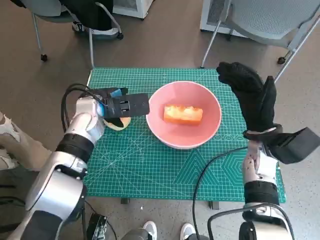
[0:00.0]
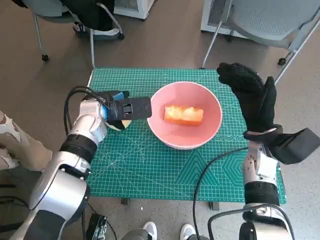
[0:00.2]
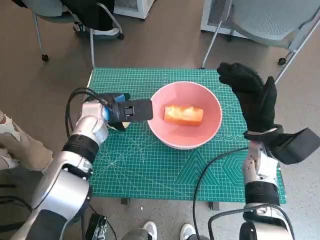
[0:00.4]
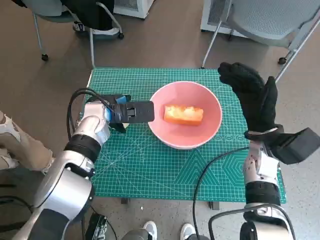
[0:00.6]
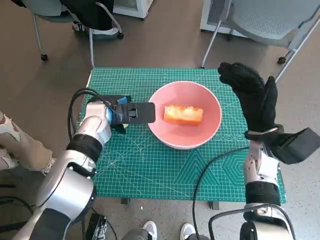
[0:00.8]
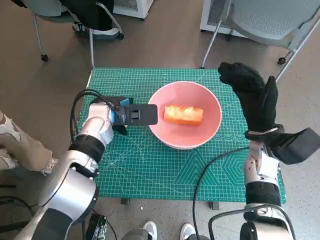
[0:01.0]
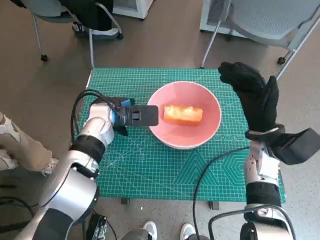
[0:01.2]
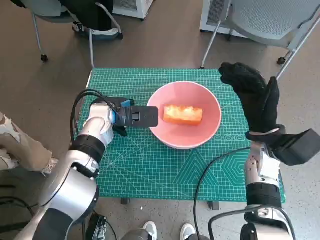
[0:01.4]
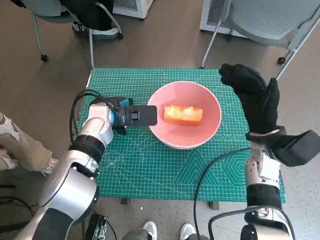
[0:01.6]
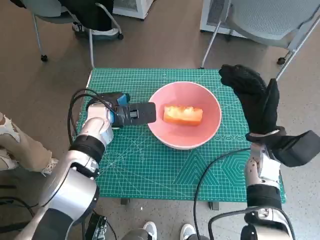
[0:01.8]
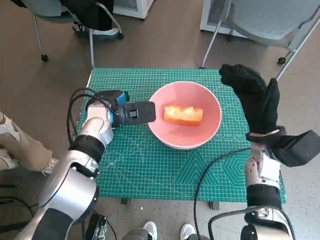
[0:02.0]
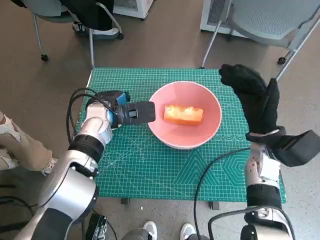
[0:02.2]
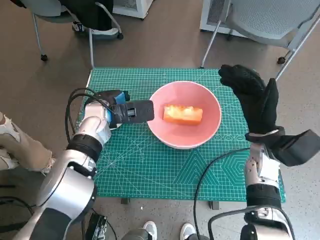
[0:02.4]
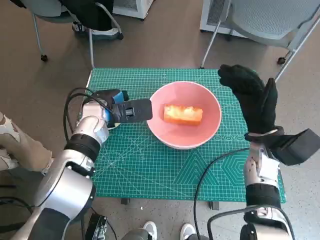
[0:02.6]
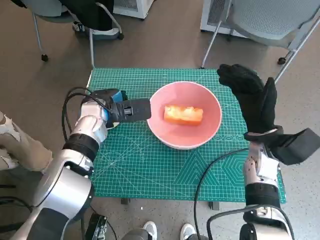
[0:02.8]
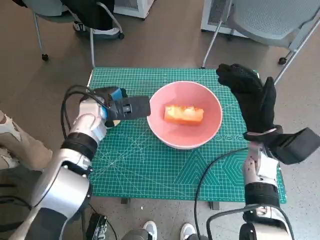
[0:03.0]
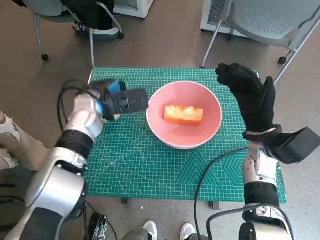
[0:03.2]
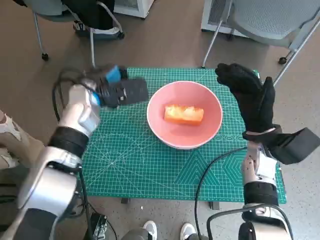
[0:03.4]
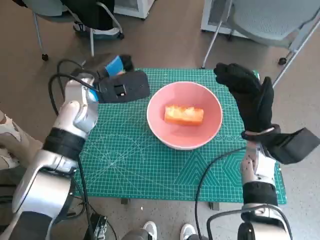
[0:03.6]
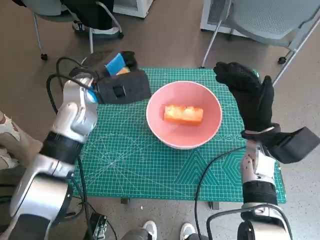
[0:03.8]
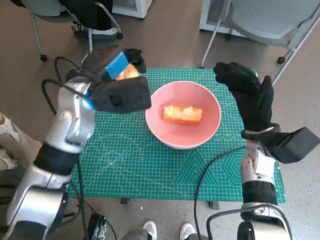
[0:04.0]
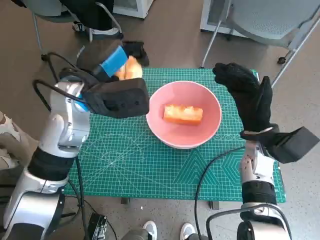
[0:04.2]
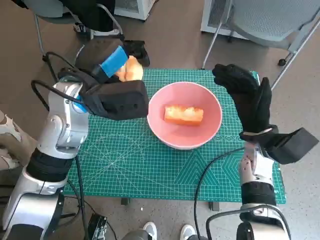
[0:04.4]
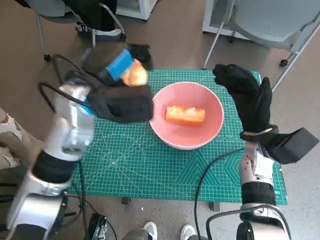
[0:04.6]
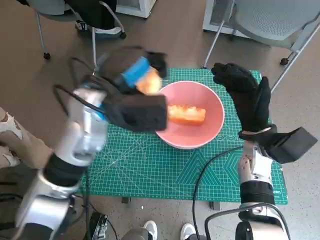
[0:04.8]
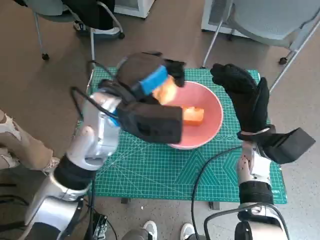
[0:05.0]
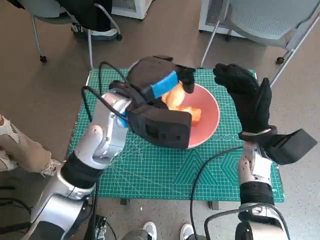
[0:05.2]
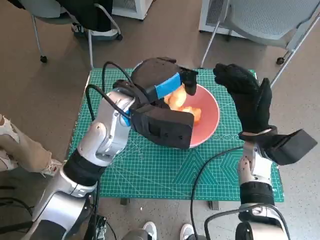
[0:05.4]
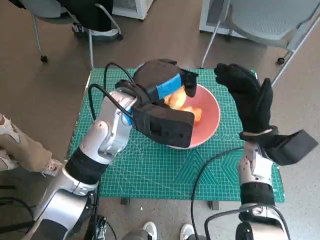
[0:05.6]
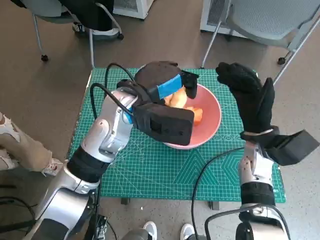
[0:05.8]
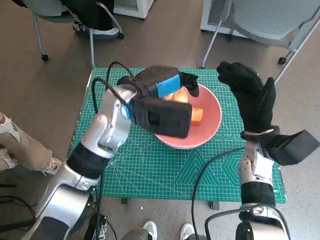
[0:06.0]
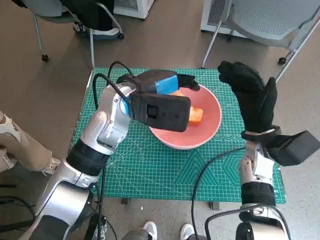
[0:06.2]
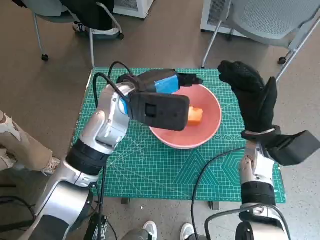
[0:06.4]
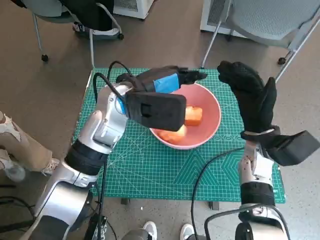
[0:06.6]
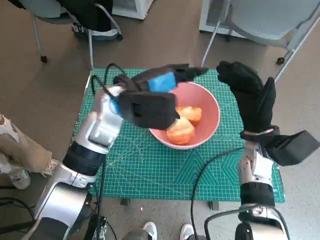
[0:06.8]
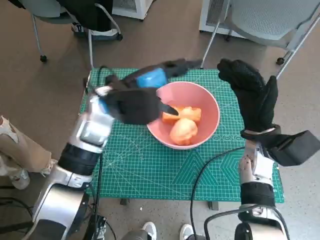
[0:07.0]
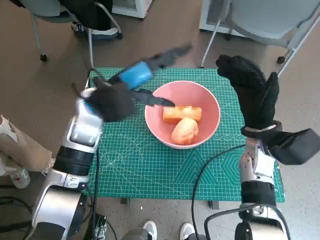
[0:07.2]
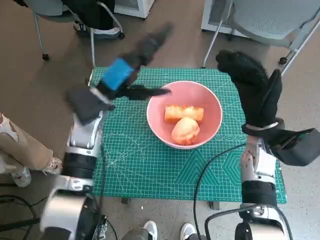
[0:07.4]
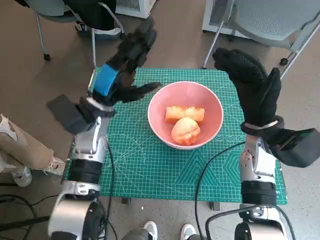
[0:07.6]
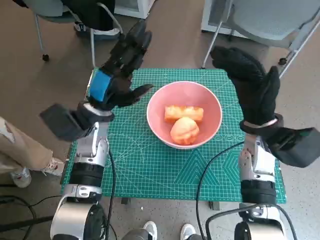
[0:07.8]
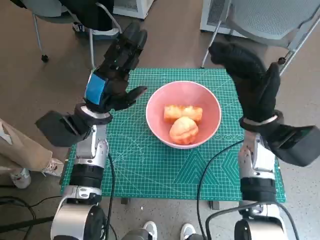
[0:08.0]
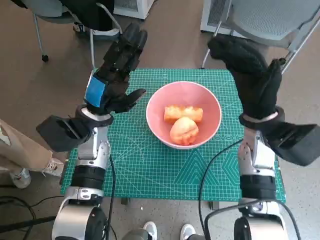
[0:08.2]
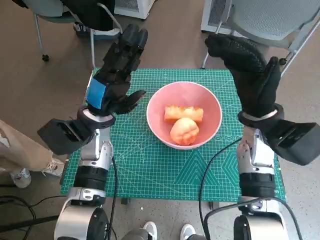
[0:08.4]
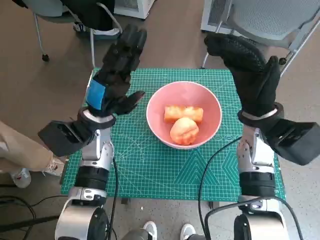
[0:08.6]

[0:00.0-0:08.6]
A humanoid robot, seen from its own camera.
Step, 0:00.0 to 0:02.2: Grasp the round bread with left hand.
Step, 0:02.4 to 0:06.6: Place the round bread in pink bowl with left hand.
0:00.0 to 0:02.8: The hands make only small movements.
0:02.8 to 0:04.4: The left hand goes some 10 cm upward.
0:04.4 to 0:05.8: The left hand heads to the right, covering about 5 cm.
0:05.8 to 0:07.2: The left hand goes roughly 5 cm to the left.
0:07.2 to 0:08.6: The left hand travels downward by roughly 5 cm, while the right hand moves roughly 5 cm.

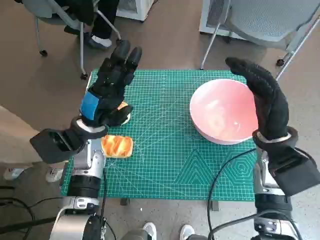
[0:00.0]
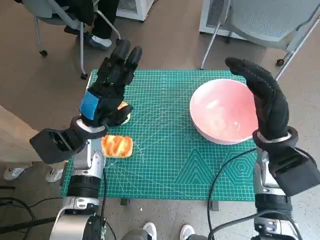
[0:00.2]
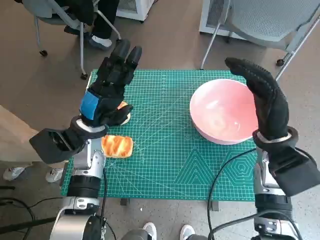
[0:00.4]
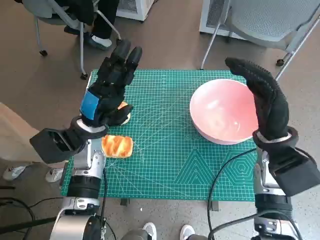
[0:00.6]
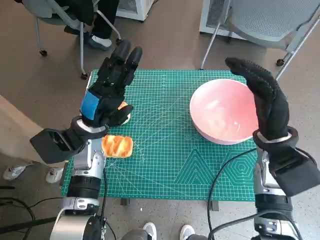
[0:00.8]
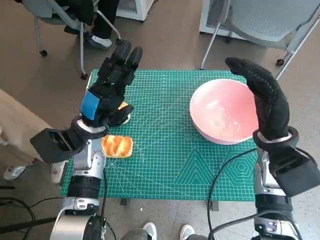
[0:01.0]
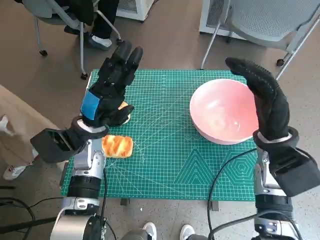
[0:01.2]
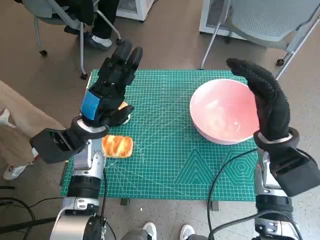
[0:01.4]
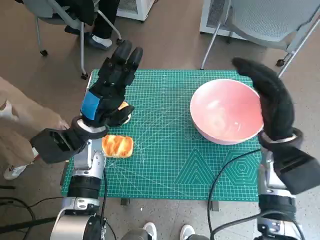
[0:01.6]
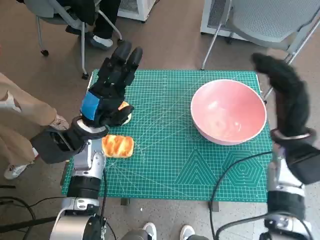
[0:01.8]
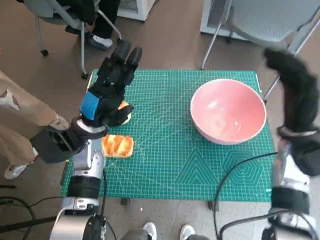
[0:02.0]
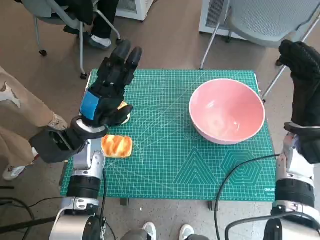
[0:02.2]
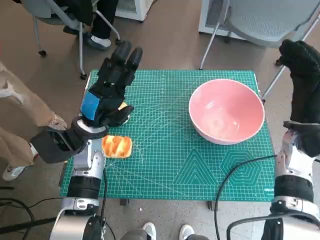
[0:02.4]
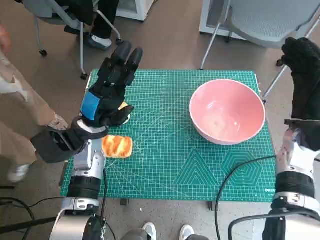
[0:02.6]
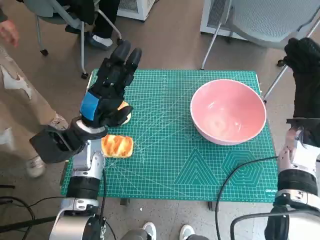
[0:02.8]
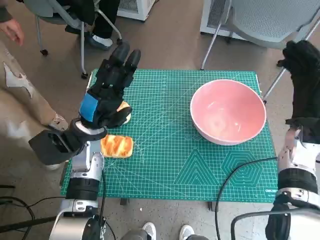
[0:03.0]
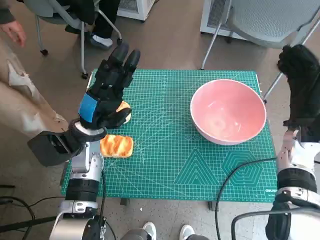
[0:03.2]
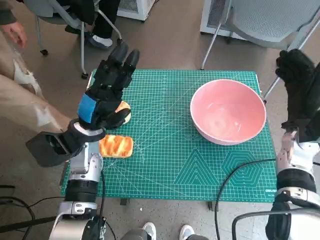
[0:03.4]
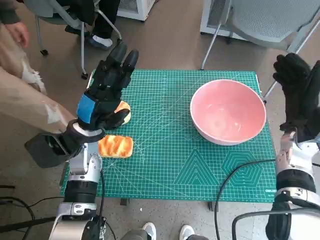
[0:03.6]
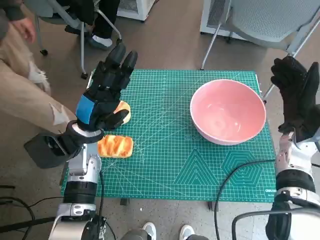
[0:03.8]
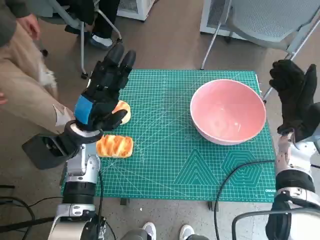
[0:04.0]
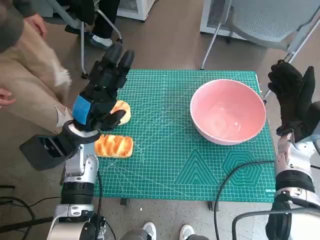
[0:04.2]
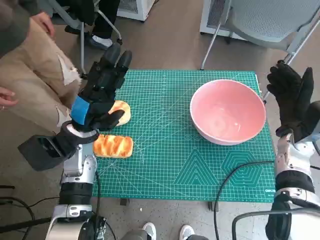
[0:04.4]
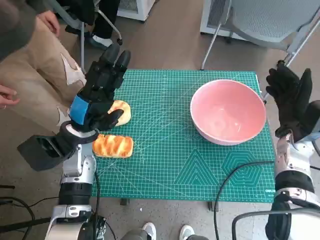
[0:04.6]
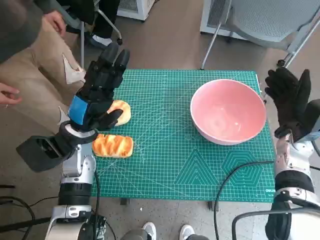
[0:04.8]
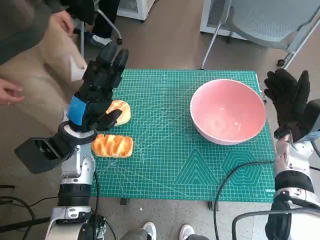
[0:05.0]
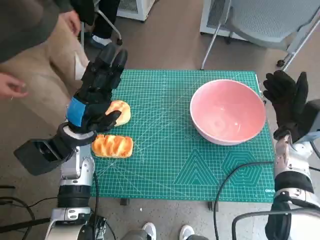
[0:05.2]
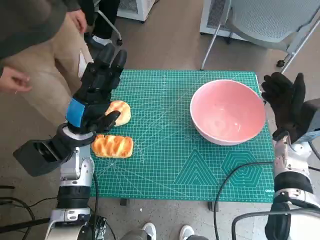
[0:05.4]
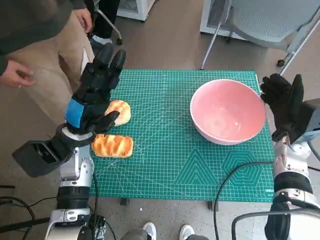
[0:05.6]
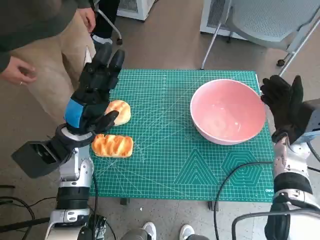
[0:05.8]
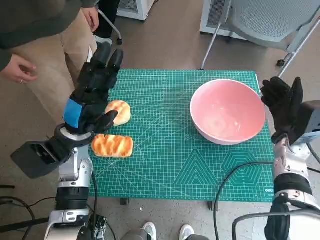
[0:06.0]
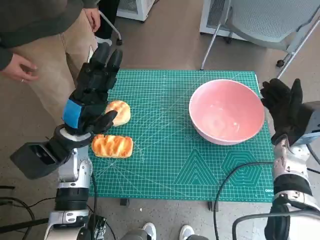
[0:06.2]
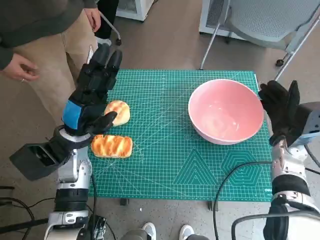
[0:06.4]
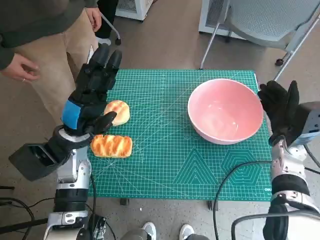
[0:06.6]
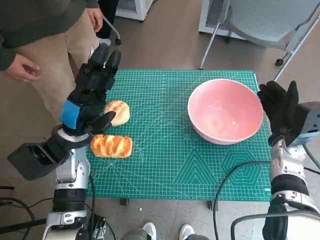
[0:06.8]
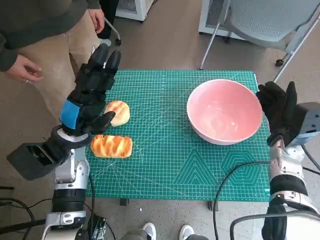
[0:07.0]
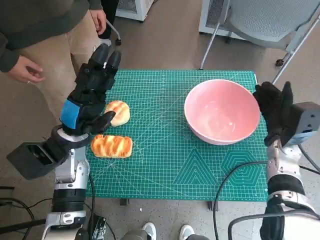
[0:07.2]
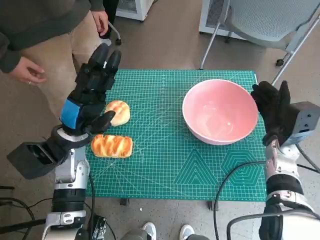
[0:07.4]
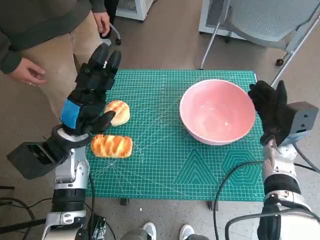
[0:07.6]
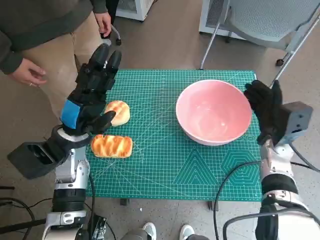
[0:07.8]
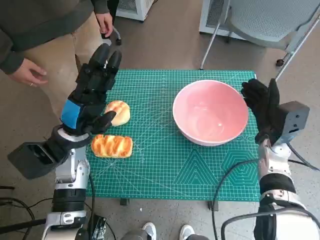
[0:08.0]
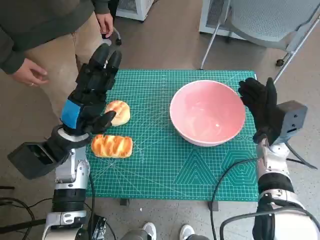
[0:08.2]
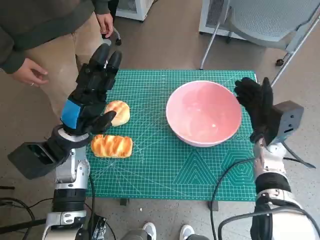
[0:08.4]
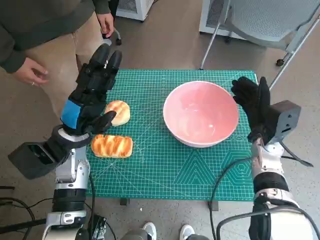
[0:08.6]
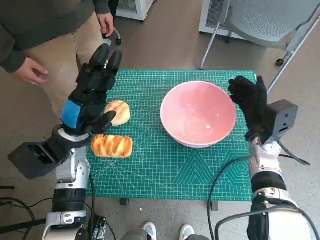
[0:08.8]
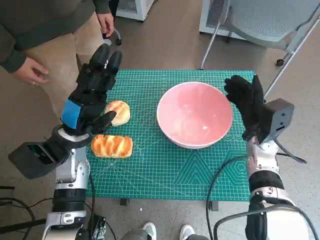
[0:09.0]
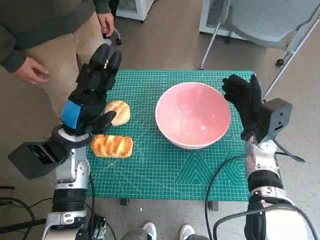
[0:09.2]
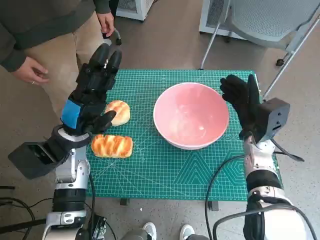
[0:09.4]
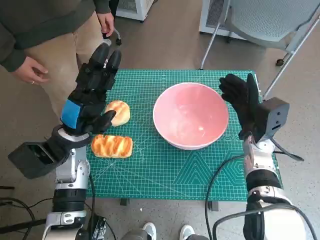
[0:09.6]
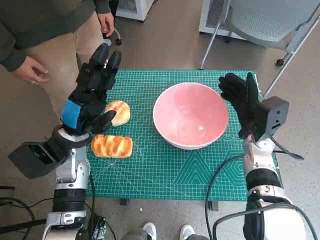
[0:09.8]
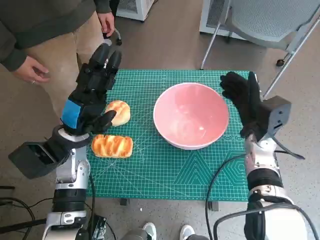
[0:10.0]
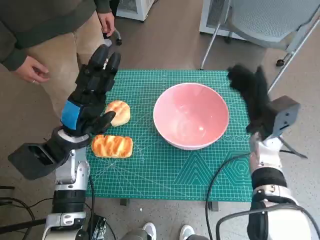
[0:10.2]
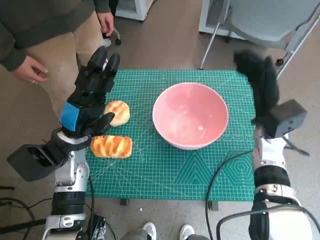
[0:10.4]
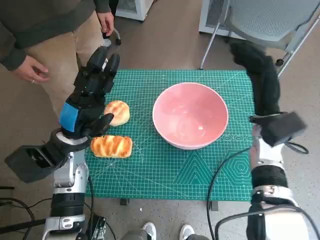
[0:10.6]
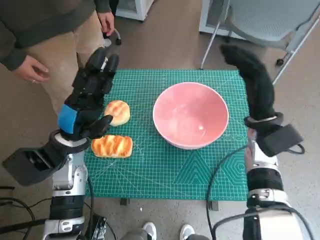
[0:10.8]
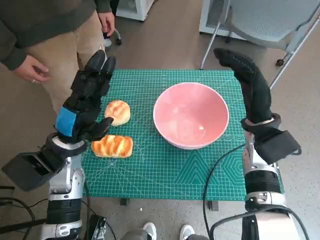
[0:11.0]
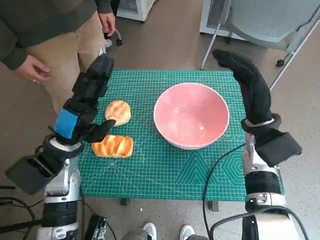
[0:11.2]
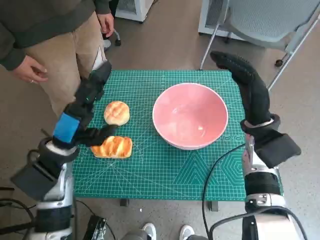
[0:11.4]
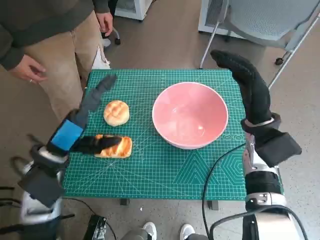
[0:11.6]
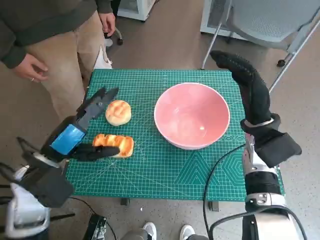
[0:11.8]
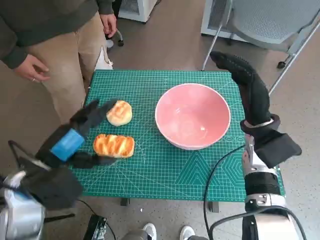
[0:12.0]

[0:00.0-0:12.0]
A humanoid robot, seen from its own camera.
Step, 0:00.0 to 0:10.0: Move the pink bowl to the center of table with right hand.
0:01.6 to 0:03.0: The right hand goes roughly 5 cm to the right.
0:06.0 to 0:09.0: The hands stay close to where they were, moving slightly.
0:09.0 to 0:10.4: The hands stay close to where they were, moving slightly.
0:10.4 to 0:12.0: The left hand moves backward, roughly 10 cm.

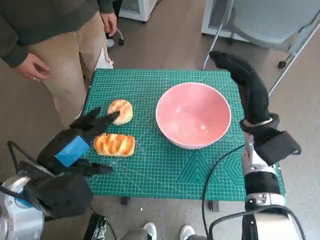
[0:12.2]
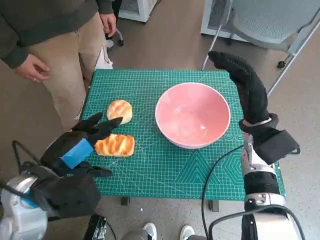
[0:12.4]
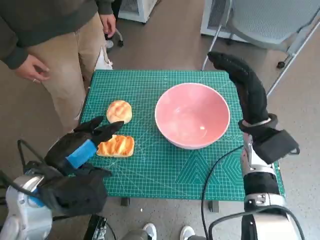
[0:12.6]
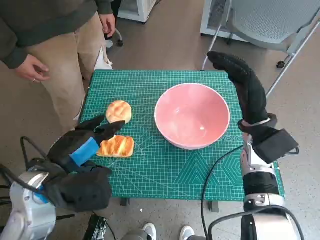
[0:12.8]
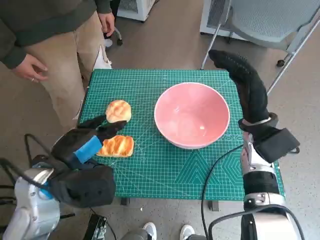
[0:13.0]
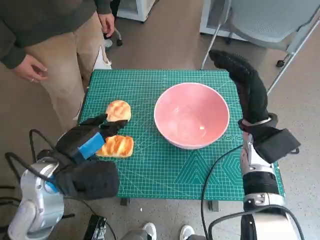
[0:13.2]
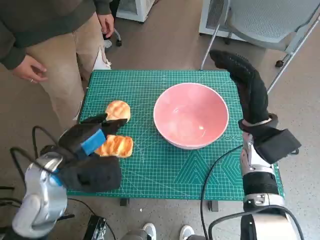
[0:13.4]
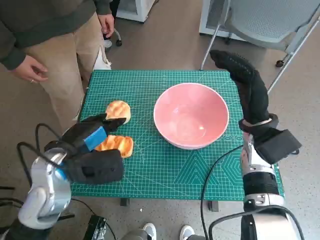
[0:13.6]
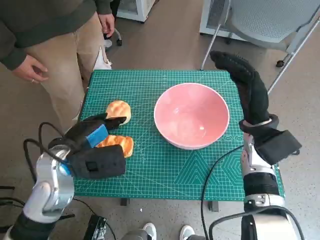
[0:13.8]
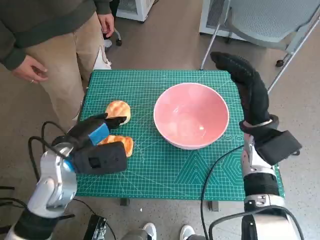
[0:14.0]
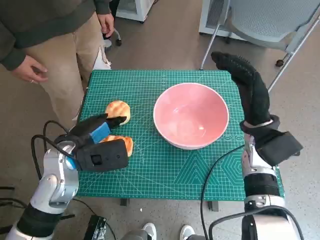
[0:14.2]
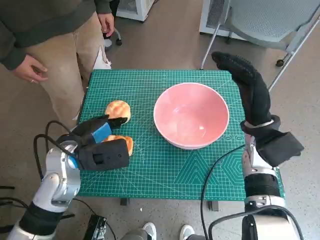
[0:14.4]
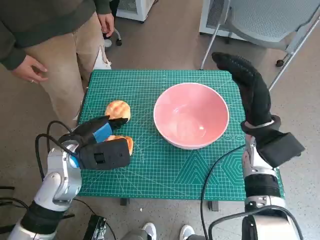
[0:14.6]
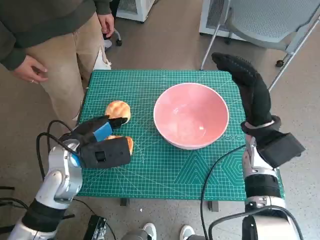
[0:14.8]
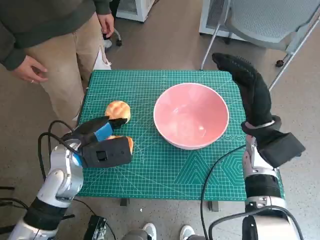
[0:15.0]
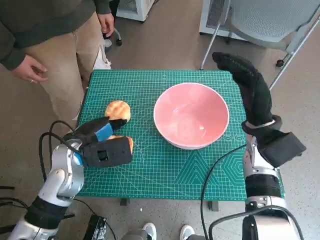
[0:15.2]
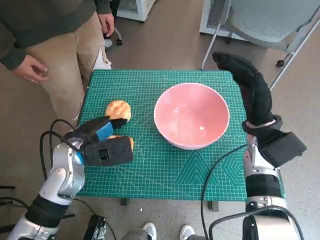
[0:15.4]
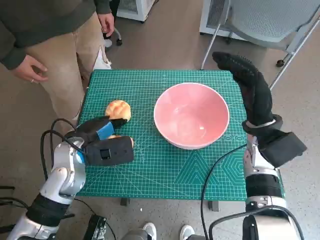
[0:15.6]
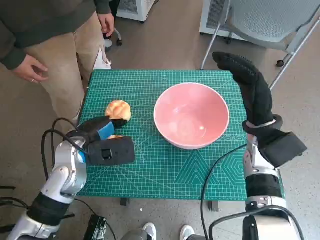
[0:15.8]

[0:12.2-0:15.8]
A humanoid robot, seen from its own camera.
0:12.2 to 0:14.0: The left hand moves forward, approximately 5 cm.
0:14.0 to 0:15.8: The hands move only a little.
